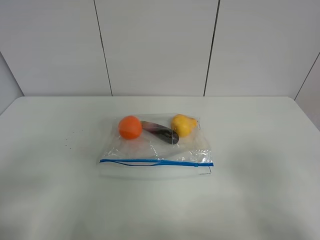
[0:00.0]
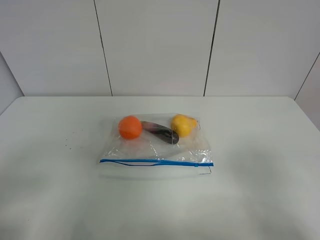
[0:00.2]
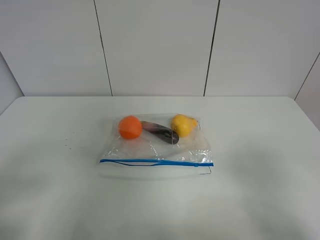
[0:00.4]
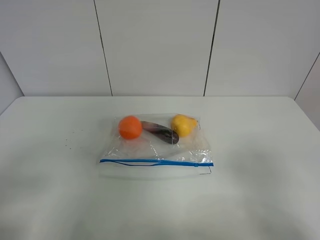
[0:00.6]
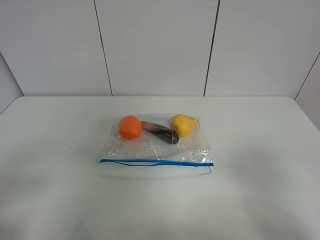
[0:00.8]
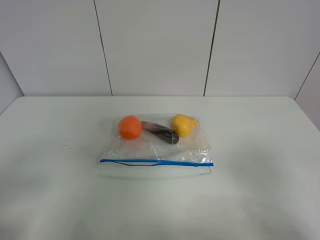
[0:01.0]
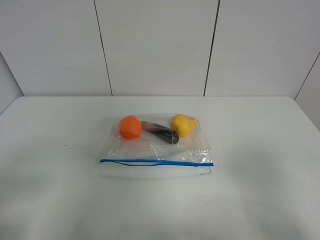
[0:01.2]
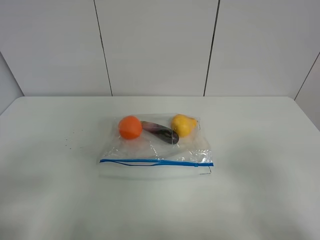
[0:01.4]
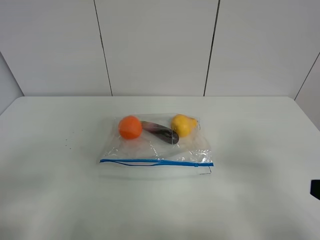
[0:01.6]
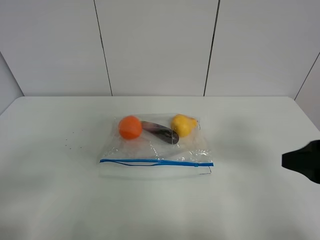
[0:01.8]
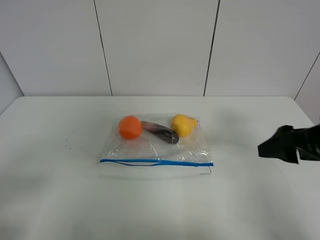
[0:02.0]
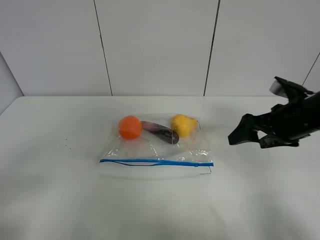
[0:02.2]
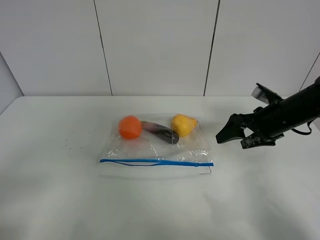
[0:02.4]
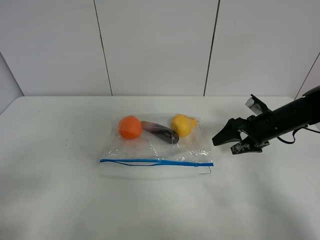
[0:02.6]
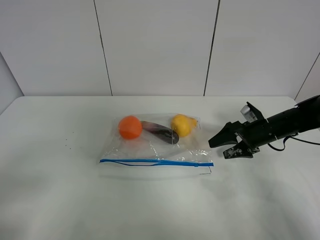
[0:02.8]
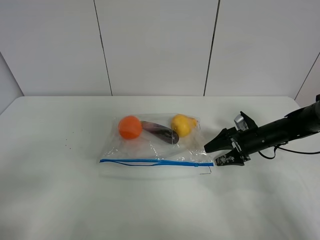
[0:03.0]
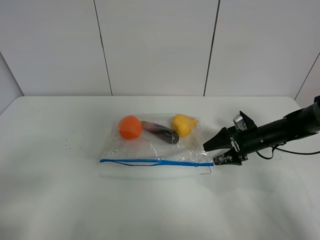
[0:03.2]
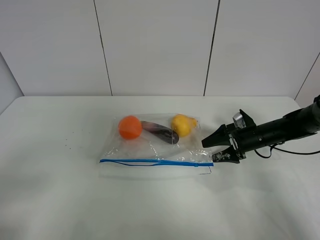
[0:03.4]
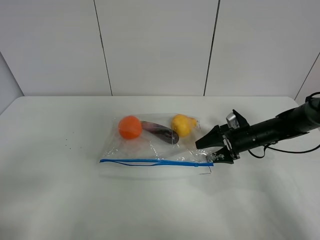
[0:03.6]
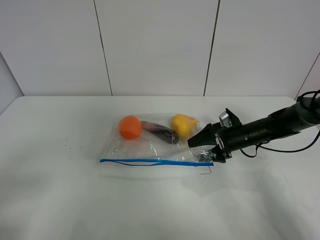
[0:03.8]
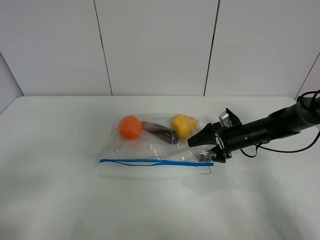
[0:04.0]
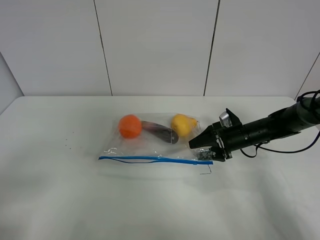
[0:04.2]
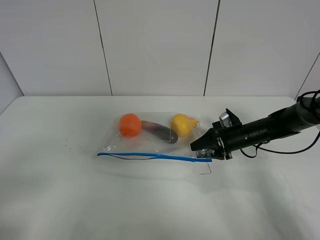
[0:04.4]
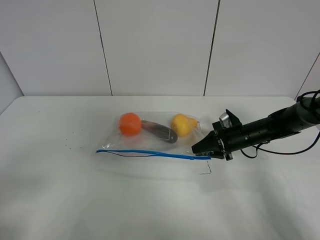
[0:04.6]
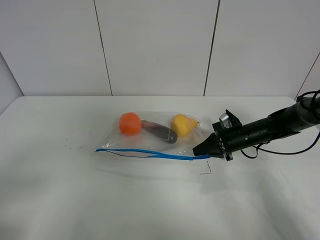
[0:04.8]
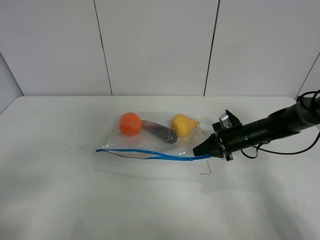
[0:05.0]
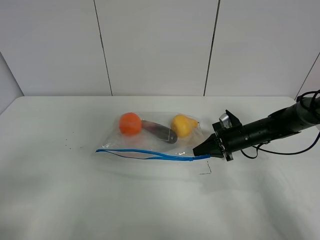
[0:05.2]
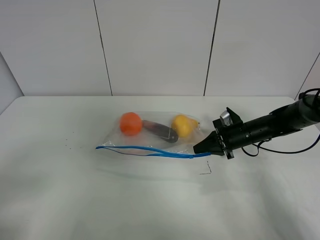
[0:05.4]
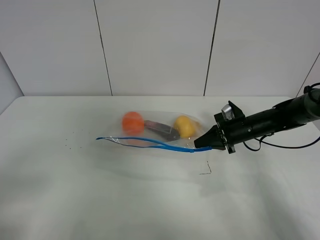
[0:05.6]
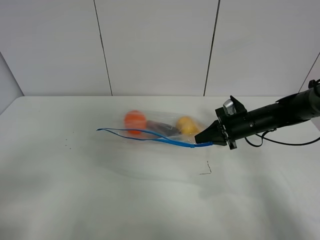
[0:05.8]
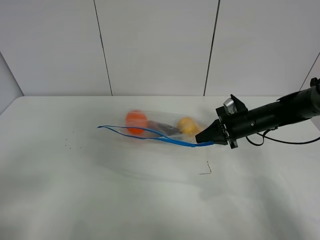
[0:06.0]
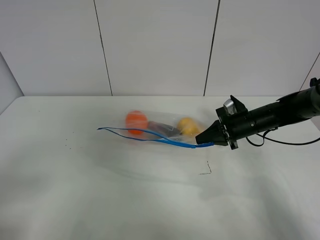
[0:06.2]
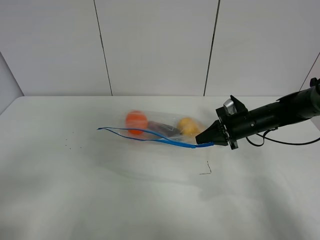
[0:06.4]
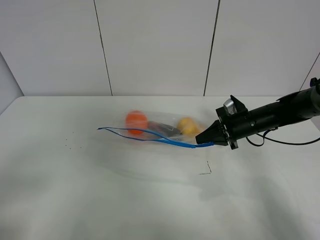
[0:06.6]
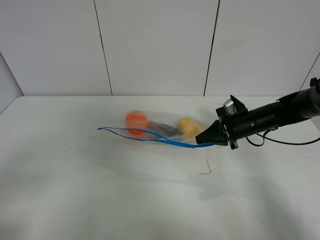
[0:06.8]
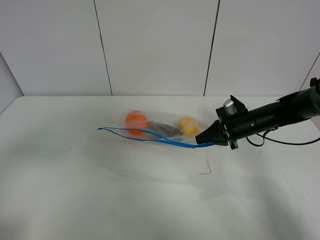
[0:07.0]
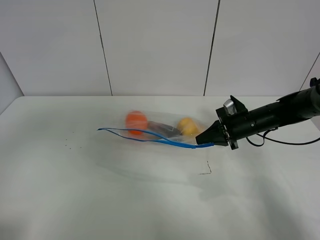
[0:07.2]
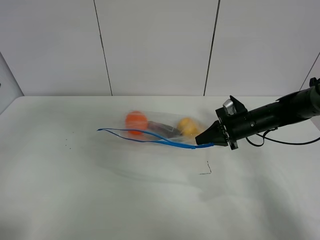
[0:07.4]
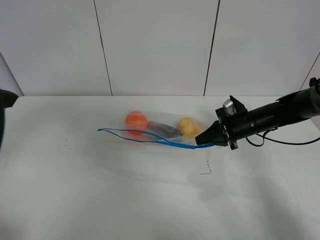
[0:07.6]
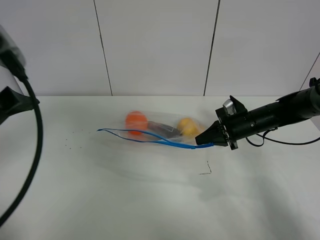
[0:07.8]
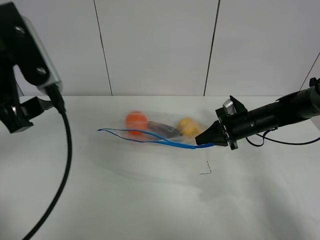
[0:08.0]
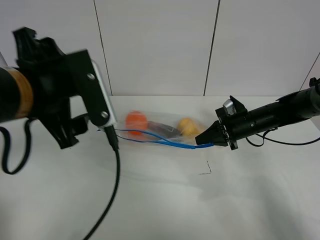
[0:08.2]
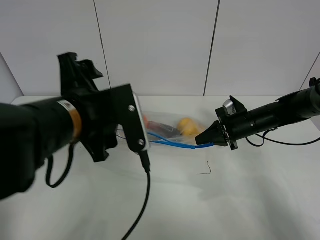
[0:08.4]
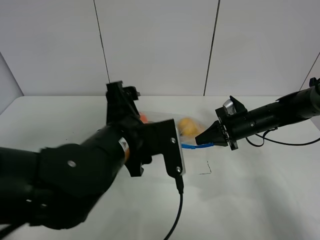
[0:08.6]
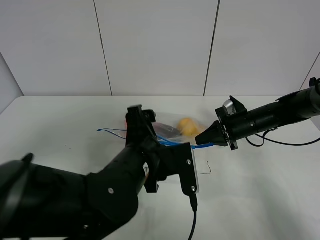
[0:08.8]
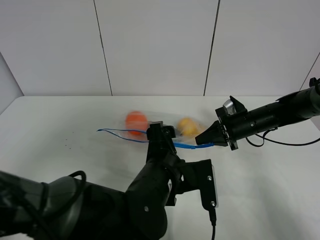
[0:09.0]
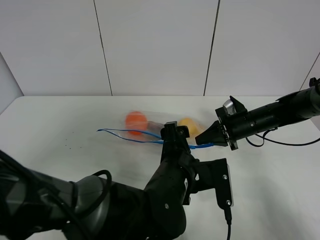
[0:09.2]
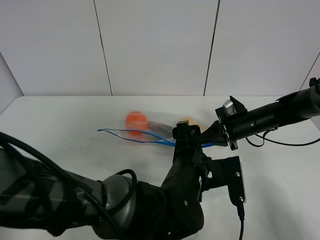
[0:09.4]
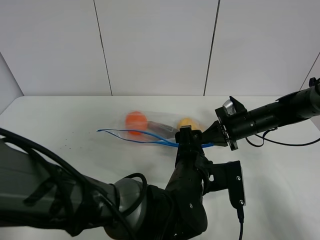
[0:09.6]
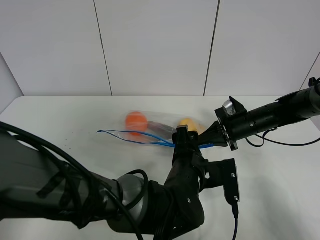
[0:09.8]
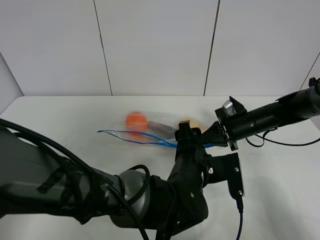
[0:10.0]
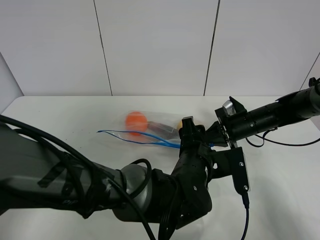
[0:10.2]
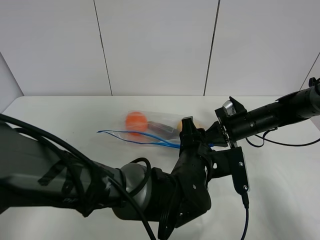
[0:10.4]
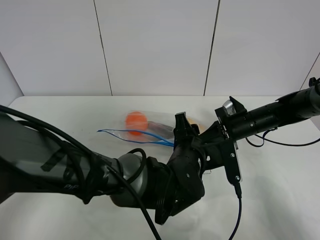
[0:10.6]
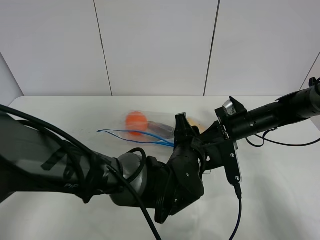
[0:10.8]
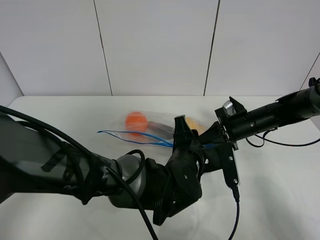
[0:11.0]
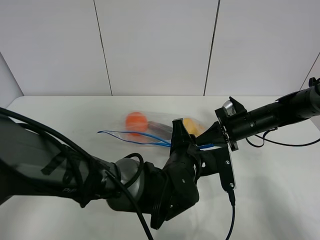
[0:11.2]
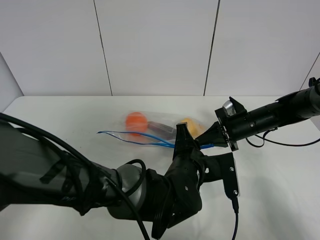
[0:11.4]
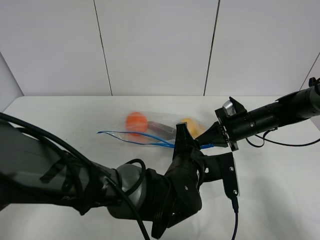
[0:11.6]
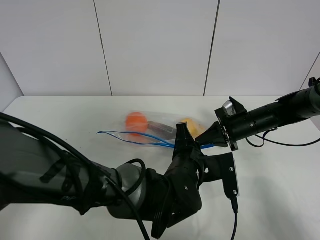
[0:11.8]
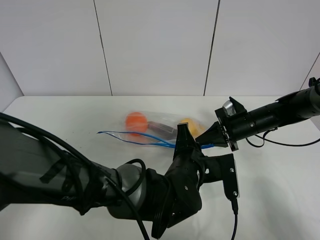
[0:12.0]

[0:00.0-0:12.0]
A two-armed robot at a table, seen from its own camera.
Step, 0:00.0 to 0:04.8: Grasp the fruit bag with right gripper.
Step, 0:05.0 to 0:06.2: Lift the fruit bag with your right gripper.
0:01.6 to 0:03.0: The right gripper shifts some 35 cm forward and downward.
0:03.0 to 0:04.4: The right gripper closes.
0:04.4 to 0:06.0: The right gripper closes.
0:06.0 to 0:07.6: The left gripper travels forward and upward by some 20 cm.
0:07.6 to 0:09.0: The left gripper is displaced to the right and downward by roughly 35 cm.
0:09.0 to 0:10.4: The left gripper moves to the right, approximately 5 cm, and closes its fingers.
0:10.4 to 0:12.0: The left gripper closes its fingers.

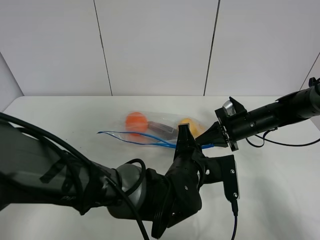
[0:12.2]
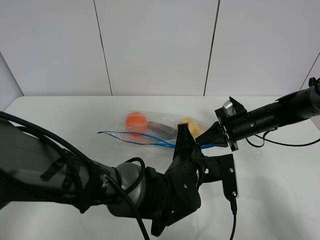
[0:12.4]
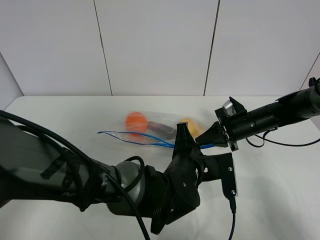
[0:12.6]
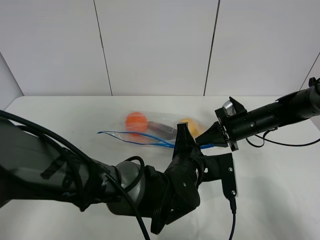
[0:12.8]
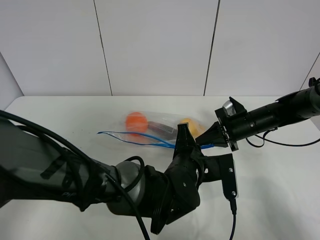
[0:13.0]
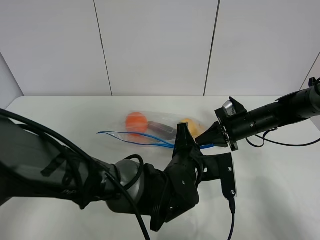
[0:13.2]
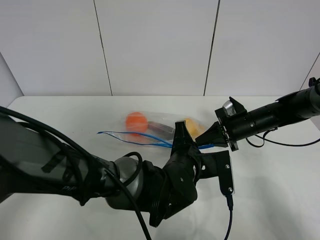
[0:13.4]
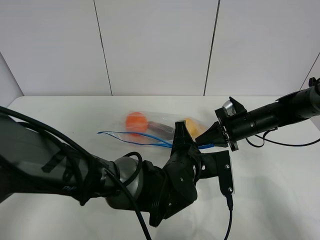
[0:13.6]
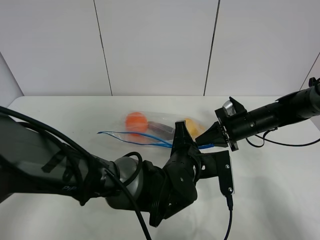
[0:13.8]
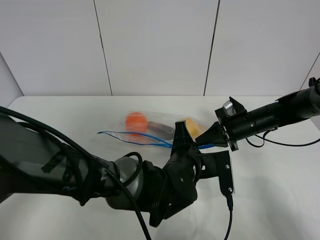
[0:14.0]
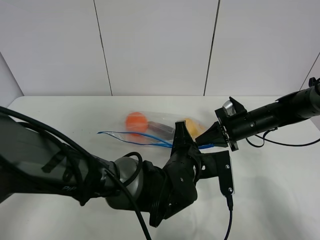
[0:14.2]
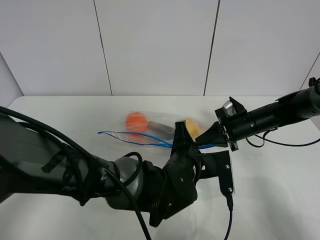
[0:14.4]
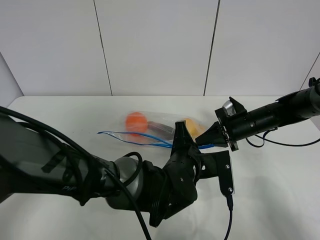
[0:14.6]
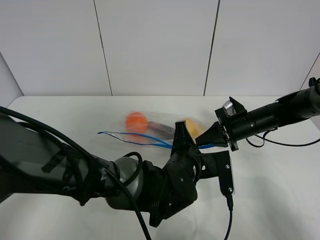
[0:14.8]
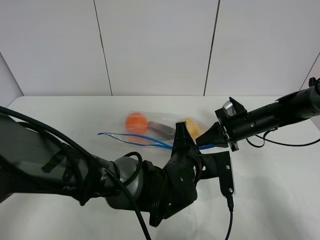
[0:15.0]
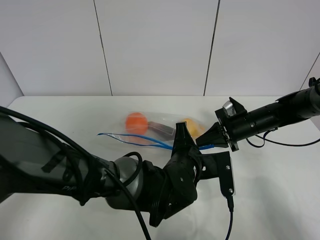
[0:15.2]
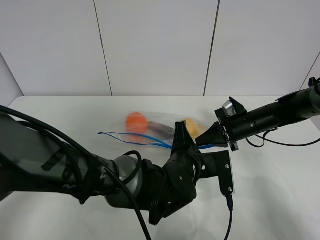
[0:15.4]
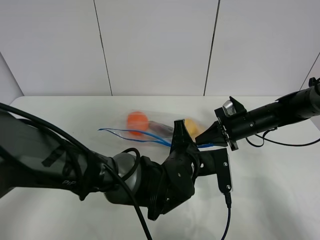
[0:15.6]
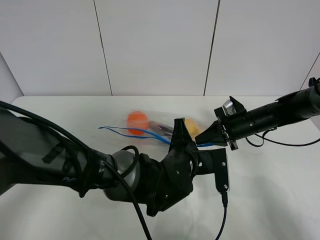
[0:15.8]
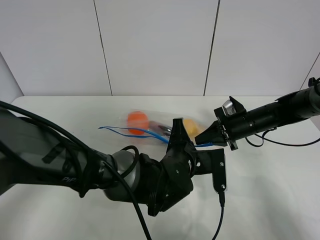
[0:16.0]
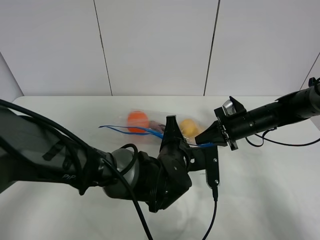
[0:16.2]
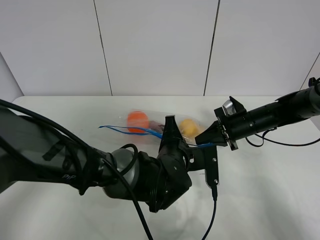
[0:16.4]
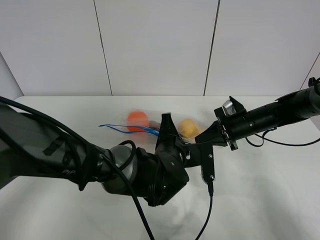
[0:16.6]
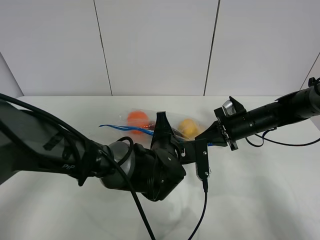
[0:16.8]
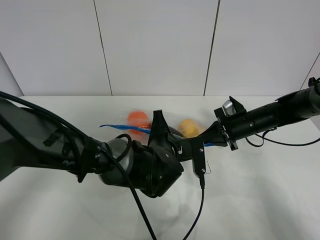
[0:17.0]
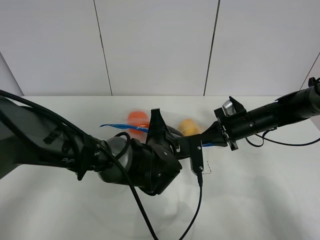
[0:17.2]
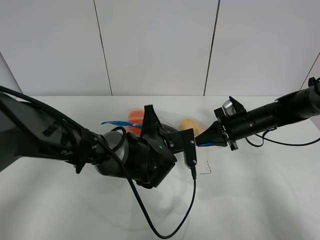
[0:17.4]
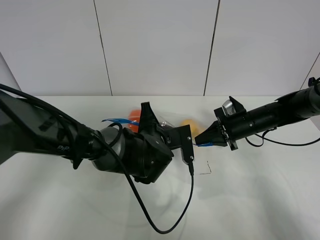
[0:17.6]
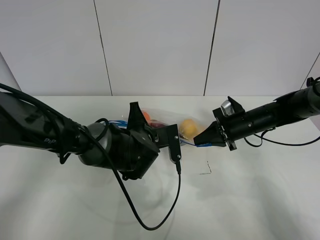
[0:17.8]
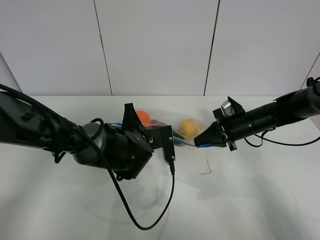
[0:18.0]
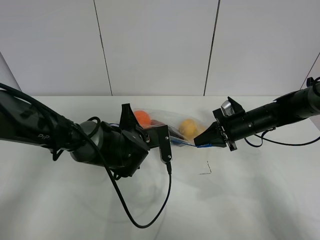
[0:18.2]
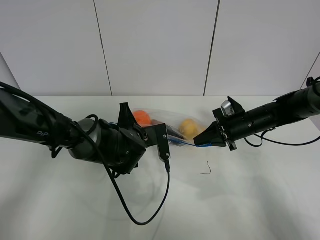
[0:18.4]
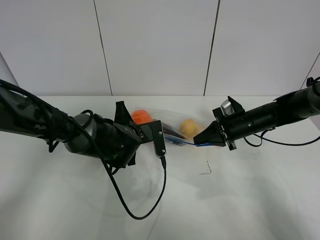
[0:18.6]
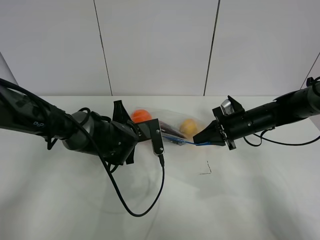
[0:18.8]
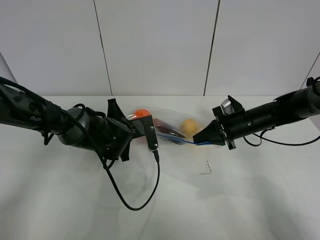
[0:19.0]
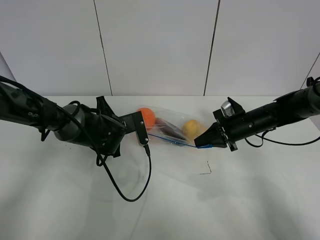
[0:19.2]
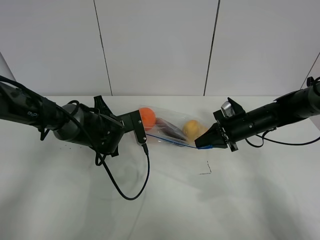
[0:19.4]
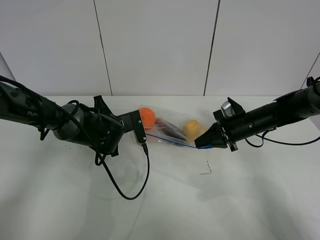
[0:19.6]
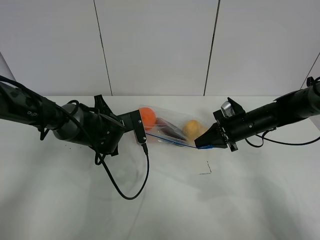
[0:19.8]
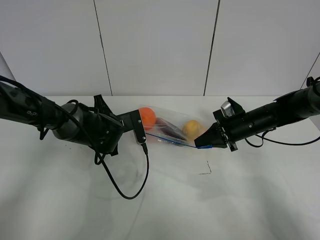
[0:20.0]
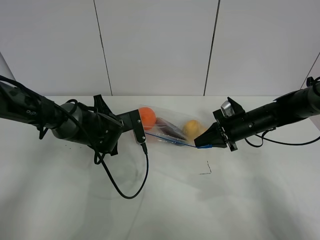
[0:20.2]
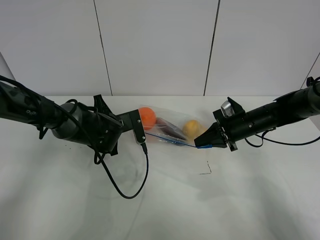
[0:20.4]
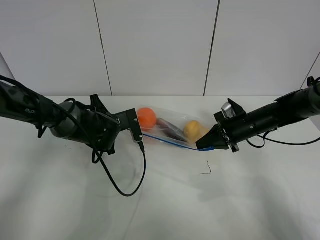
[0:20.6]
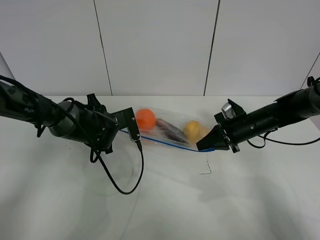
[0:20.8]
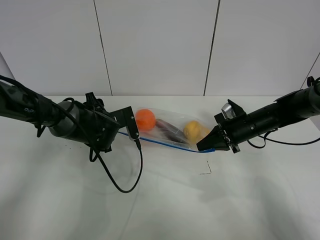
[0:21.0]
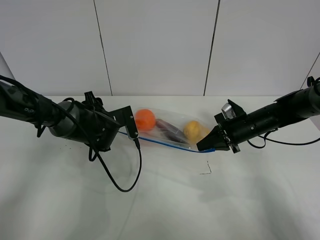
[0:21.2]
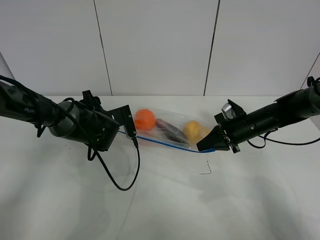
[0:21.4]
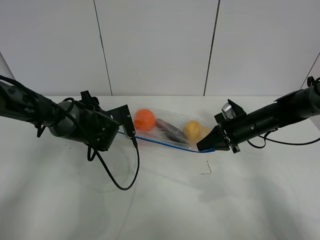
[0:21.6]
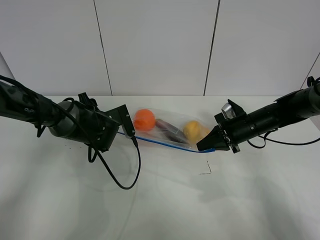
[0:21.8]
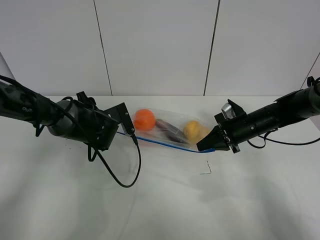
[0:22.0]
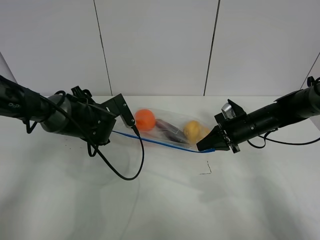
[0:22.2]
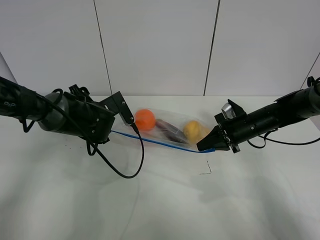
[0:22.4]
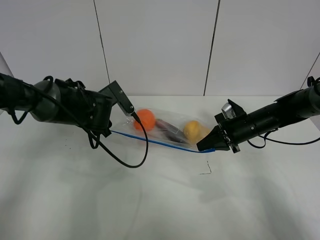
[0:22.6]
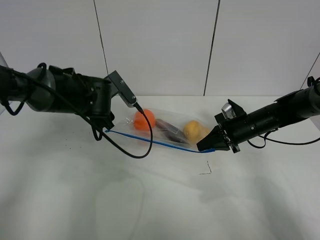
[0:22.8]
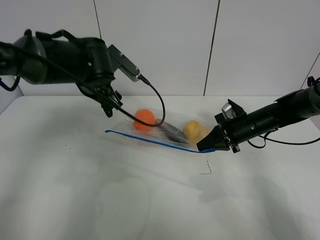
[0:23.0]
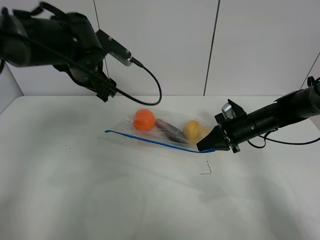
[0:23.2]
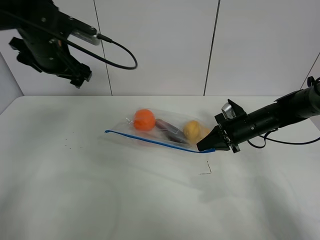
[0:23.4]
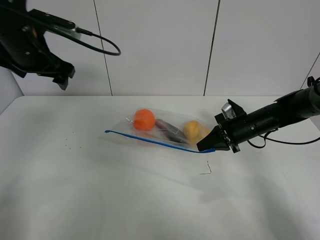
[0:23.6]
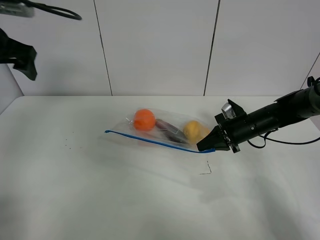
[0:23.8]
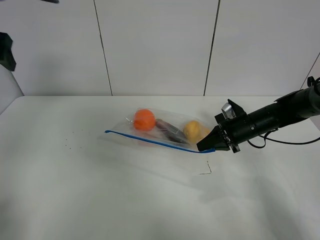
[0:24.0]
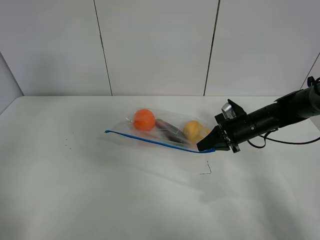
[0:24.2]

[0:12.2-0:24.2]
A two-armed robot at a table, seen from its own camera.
Step, 0:12.2 to 0:20.8: Pull the fruit bag with left gripper.
0:12.2 to 0:15.2: Neither gripper changes place.
0:15.2 to 0:16.6: The grippers make only small movements.
0:16.6 to 0:18.2: The left gripper shifts about 10 cm to the left.
0:18.2 to 0:19.8: The left gripper travels to the left by some 5 cm.
0:19.8 to 0:21.2: The left gripper opens up.
0:21.2 to 0:22.6: The left gripper heads upward, covering some 5 cm.
0:22.6 to 0:24.2: The left gripper moves upward and to the left, roughly 30 cm.
